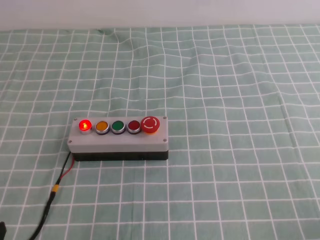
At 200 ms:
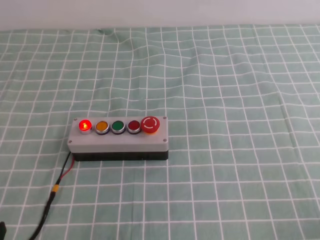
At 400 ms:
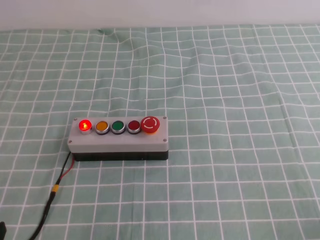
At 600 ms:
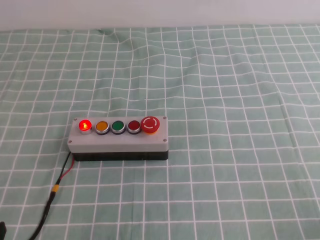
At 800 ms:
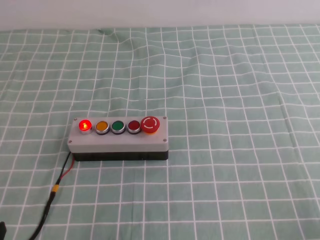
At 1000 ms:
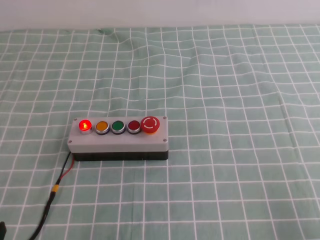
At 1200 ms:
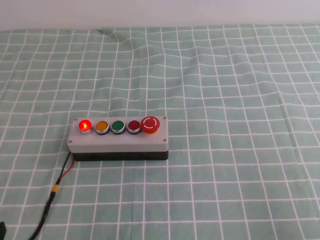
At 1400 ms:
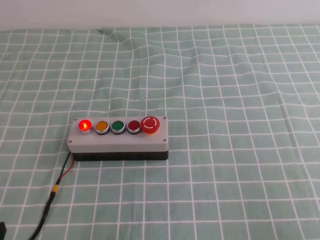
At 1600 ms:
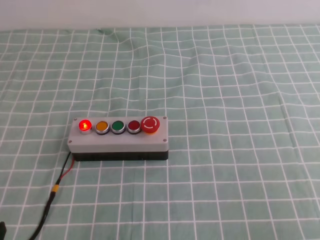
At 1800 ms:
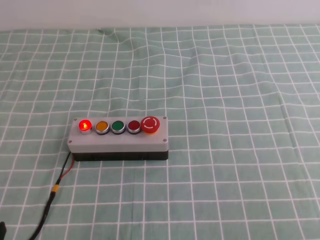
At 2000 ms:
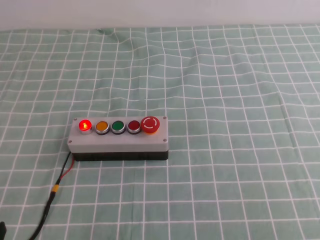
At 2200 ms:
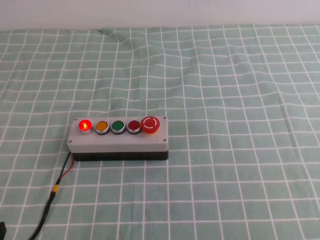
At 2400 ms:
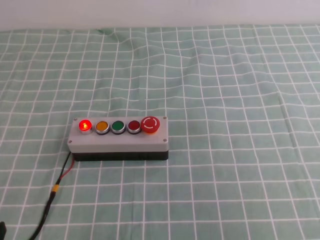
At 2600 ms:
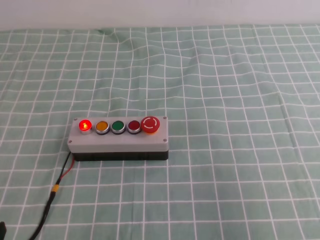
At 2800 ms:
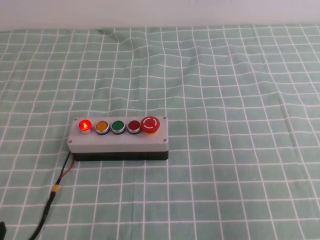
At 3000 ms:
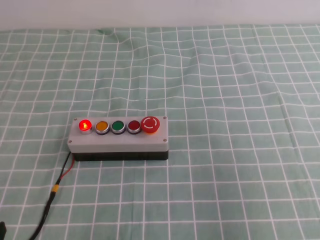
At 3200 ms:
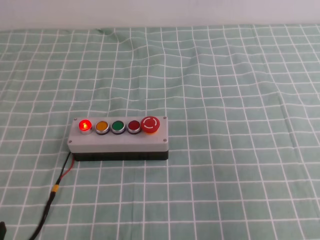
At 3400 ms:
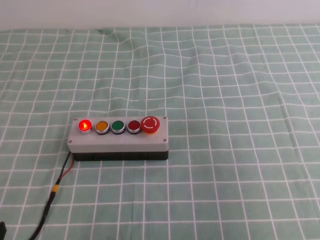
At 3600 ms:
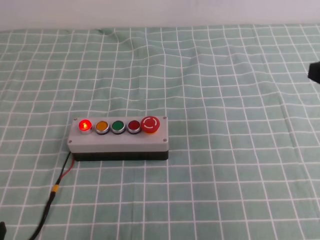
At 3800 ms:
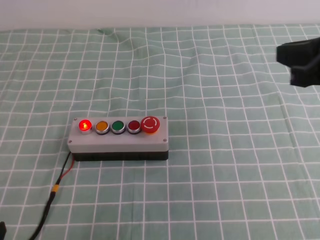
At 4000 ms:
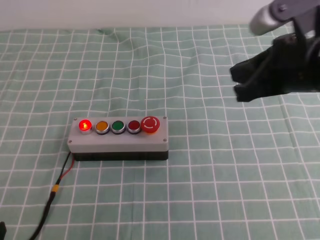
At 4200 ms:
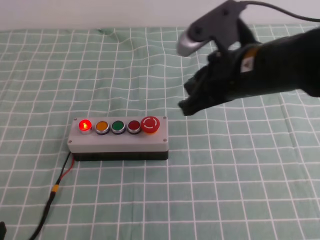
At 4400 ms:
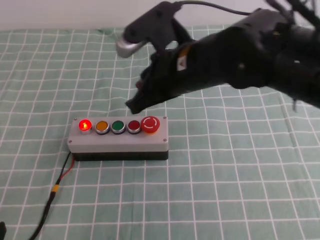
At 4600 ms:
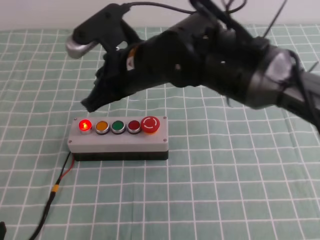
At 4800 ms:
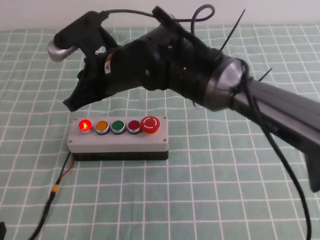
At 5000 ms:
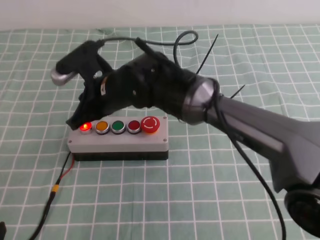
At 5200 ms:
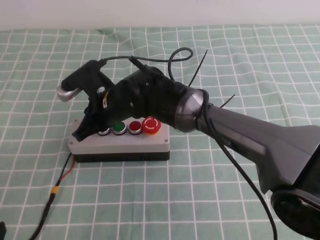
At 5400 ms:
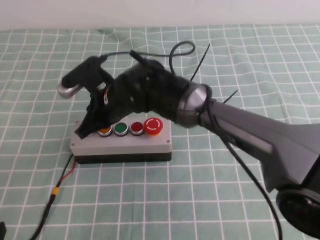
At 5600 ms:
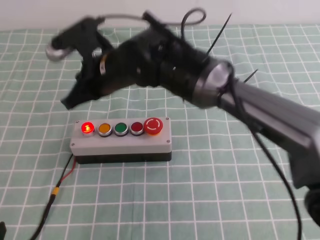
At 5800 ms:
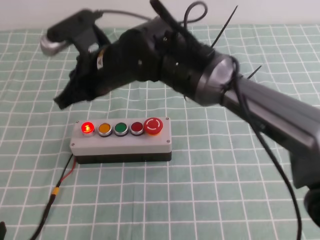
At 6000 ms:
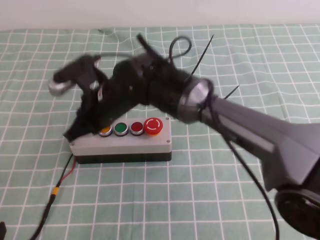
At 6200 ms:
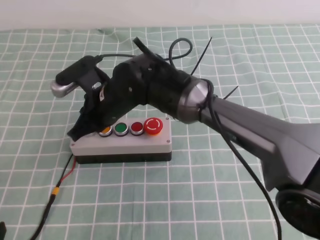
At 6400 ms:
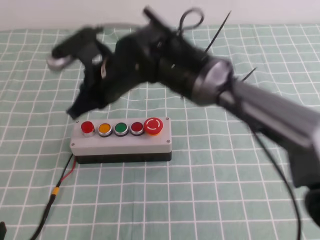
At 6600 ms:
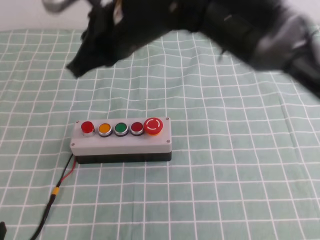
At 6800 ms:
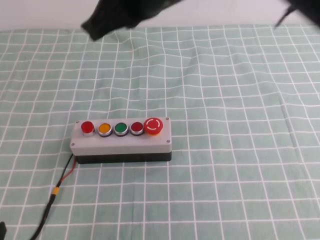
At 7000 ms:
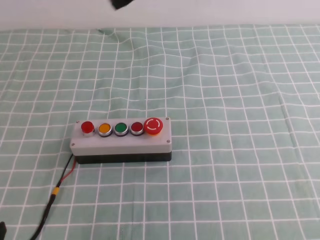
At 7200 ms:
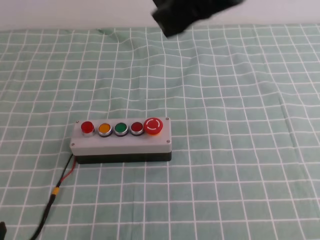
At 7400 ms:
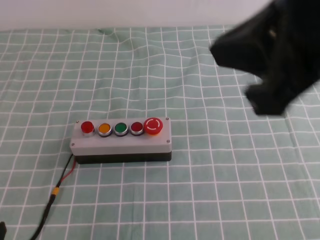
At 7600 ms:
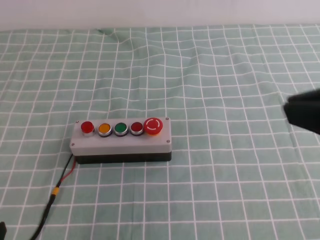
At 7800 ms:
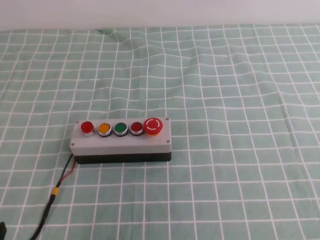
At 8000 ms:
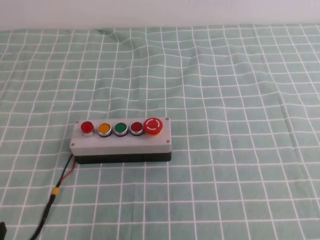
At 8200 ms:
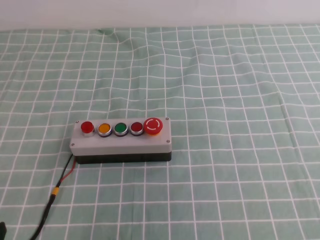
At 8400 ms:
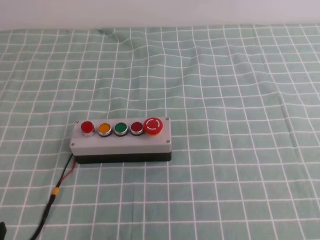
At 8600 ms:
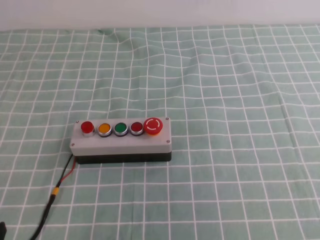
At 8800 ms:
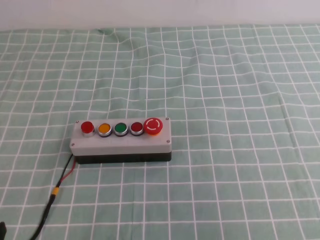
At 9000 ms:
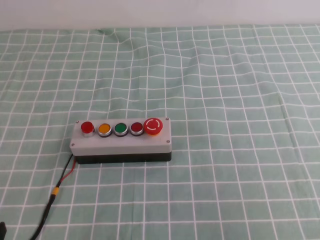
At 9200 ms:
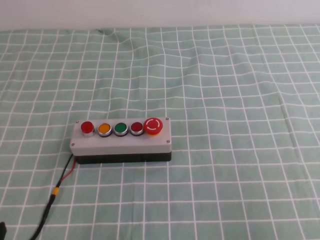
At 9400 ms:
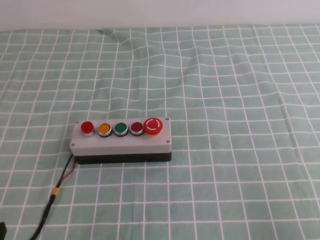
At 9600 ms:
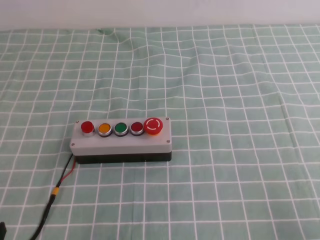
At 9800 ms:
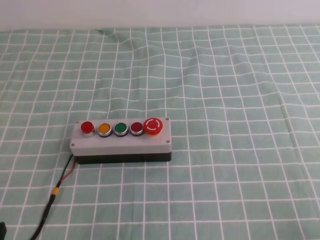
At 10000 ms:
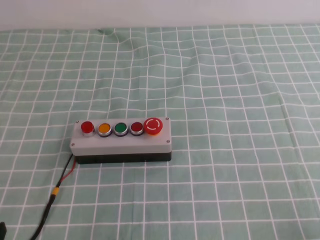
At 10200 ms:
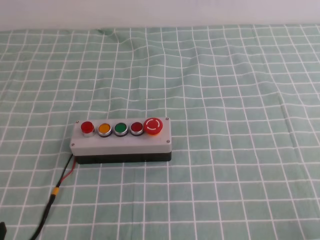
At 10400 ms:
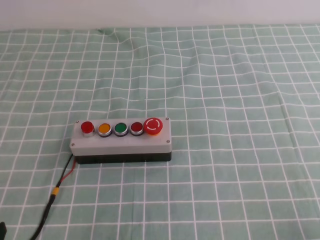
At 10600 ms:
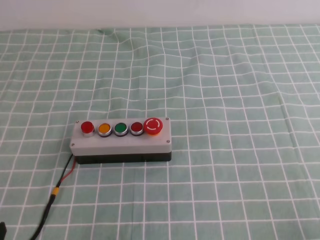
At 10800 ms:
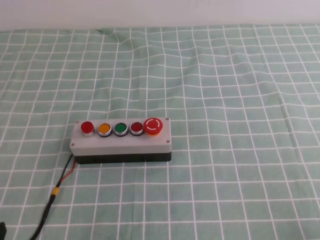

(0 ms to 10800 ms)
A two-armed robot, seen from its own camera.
Task of the whole recording: press the button switch on the cyan tablecloth with the right gripper to turn off the button.
Step, 0 ms - 10800 ms: Press the button to turn off.
3000 ms - 4600 ms: The right gripper heads to the left and forward, covering approximately 35 cm.
4600 ms - 6200 ms: The right gripper travels to the left and downward by approximately 10 cm.
6200 ms - 7800 ms: The right gripper moves to the right, backward and upward, roughly 40 cm.
